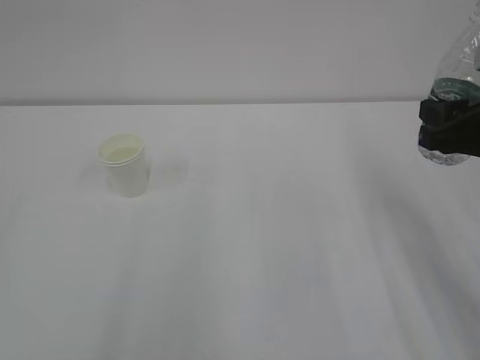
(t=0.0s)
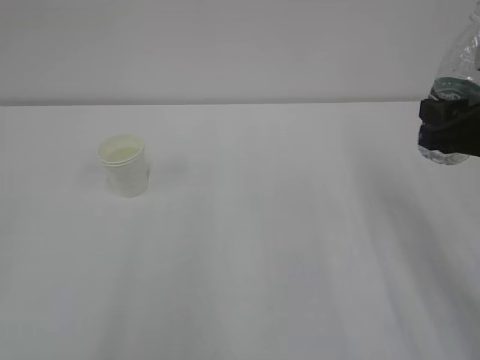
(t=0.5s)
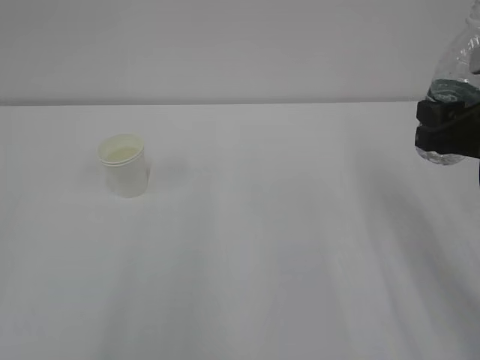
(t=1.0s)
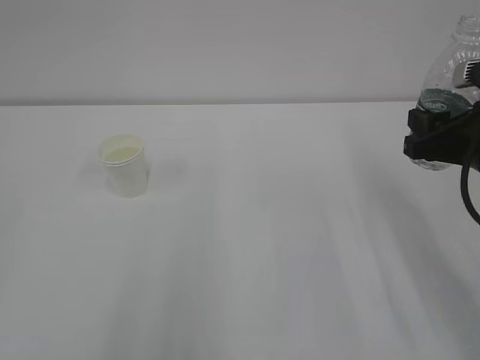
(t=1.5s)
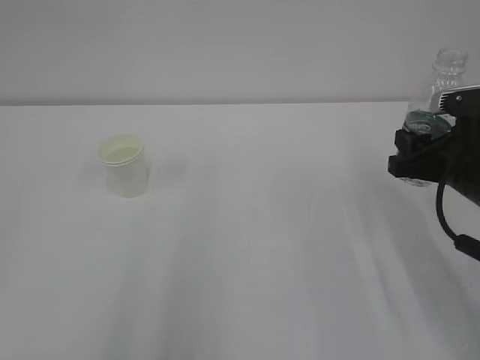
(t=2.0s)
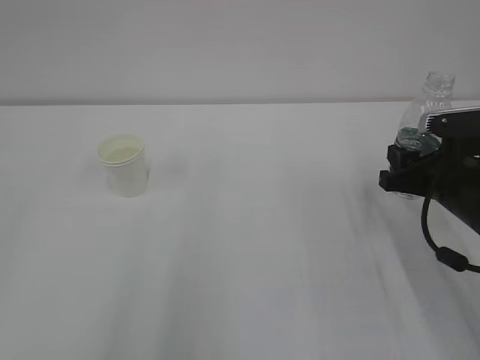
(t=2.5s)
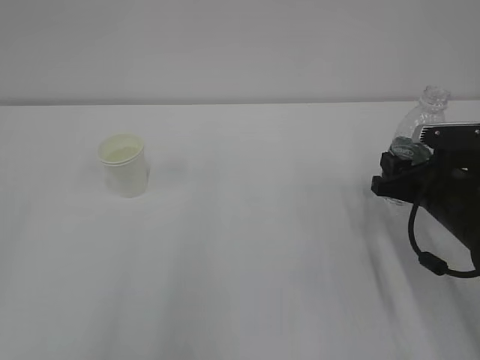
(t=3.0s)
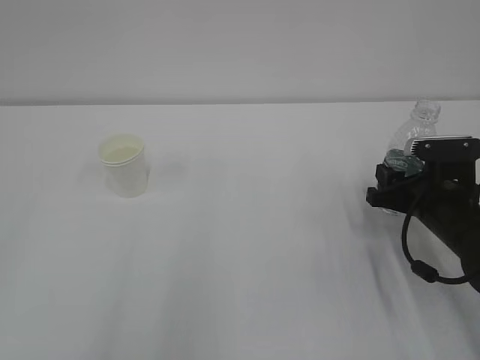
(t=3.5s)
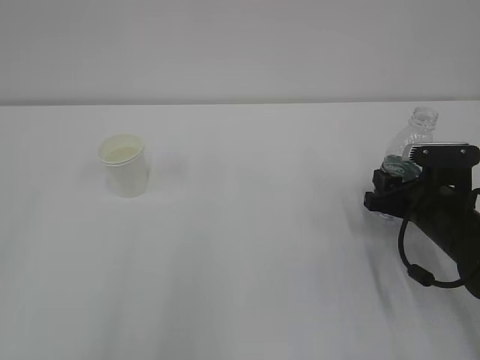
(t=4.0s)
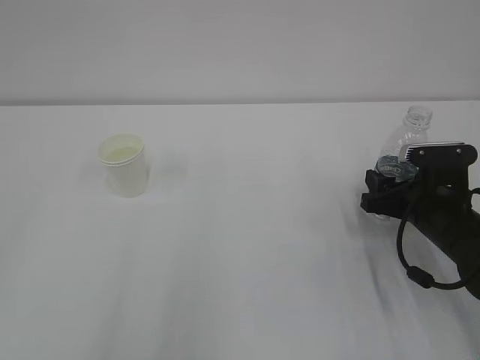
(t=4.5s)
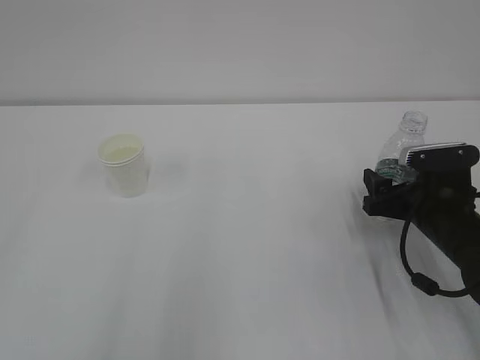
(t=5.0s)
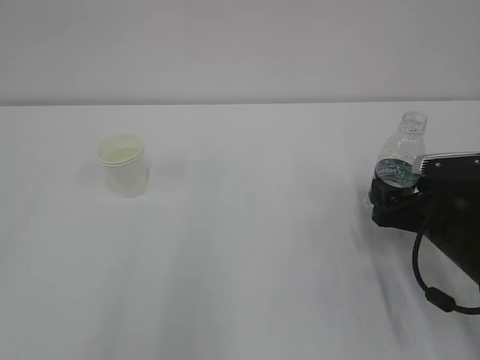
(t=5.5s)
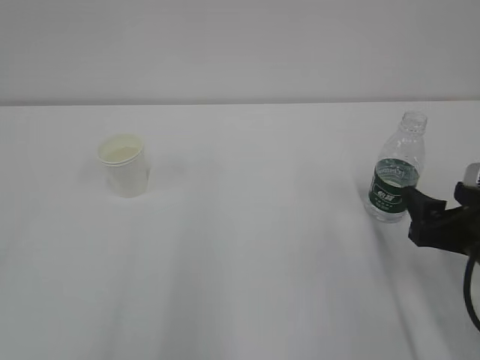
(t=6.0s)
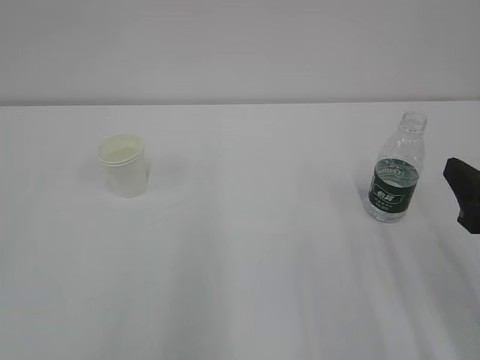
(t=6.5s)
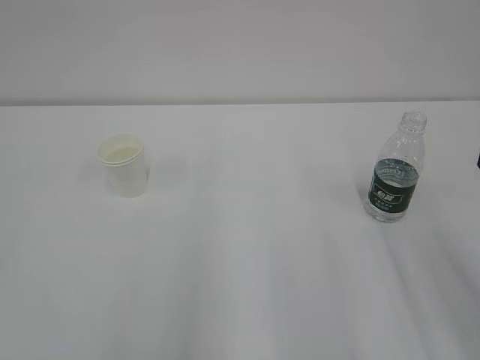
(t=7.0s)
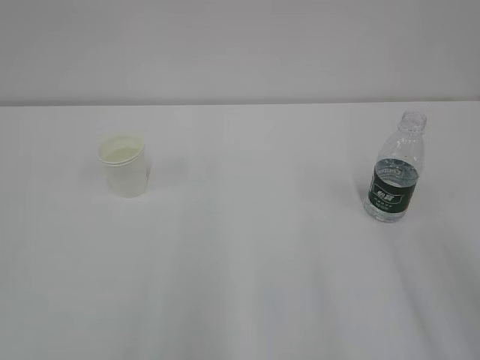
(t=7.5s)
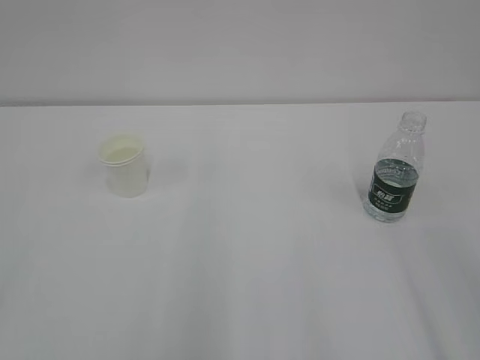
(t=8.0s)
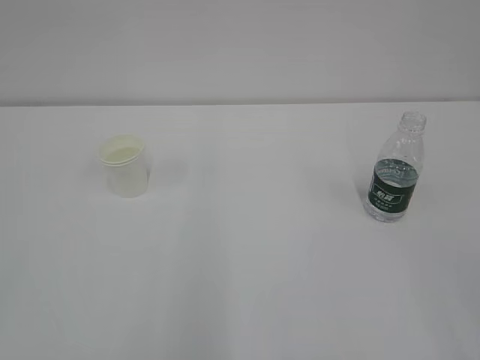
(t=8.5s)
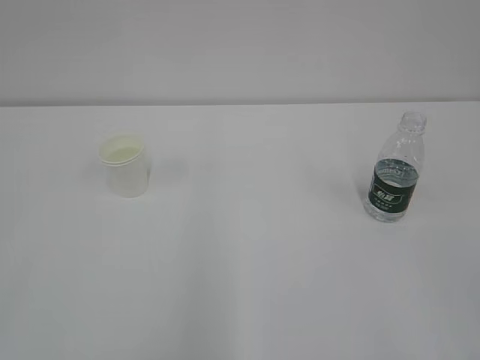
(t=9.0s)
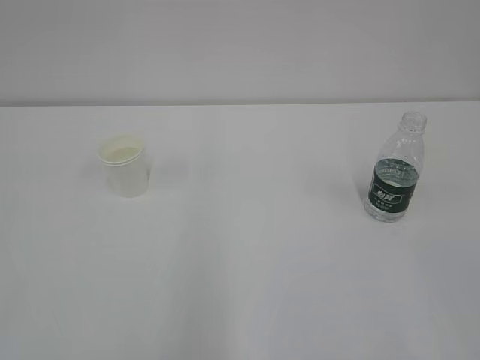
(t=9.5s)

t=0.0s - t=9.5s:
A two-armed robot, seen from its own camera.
t=0.0s - t=2.0s: The right gripper shifts some 5 cm downward.
t=2.0s - t=4.0s: The right gripper shifts approximately 10 cm downward.
t=4.0s - t=5.5s: The right gripper opens its fingers.
t=5.5s - t=7.5s: The right gripper moves upward and backward, approximately 25 cm.
